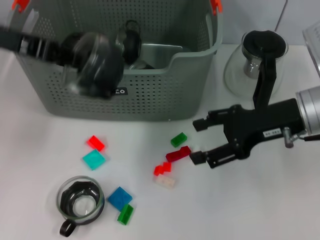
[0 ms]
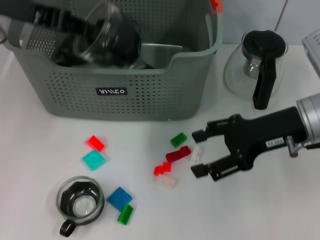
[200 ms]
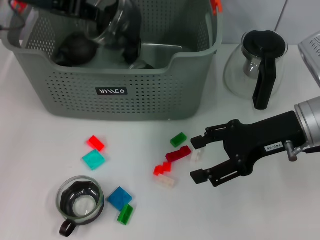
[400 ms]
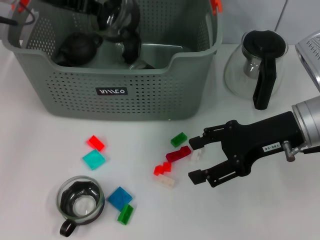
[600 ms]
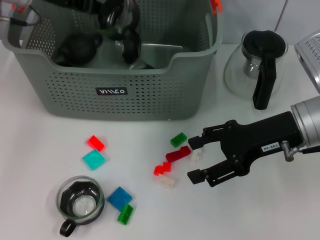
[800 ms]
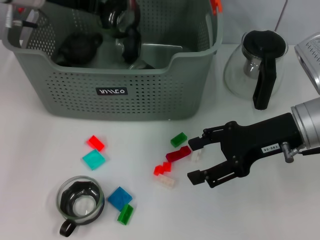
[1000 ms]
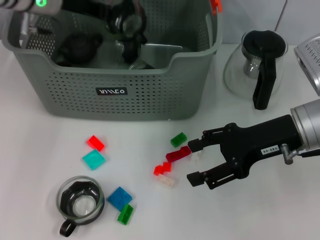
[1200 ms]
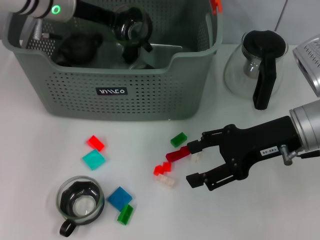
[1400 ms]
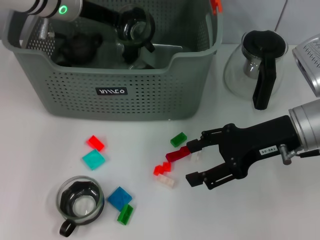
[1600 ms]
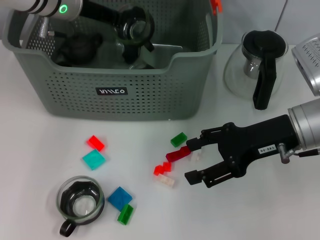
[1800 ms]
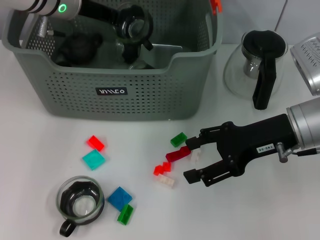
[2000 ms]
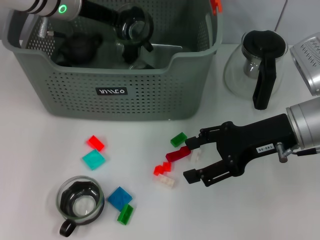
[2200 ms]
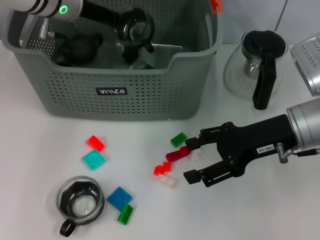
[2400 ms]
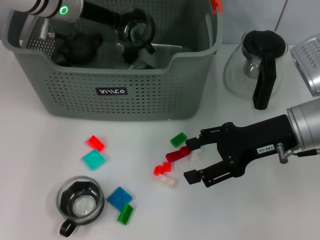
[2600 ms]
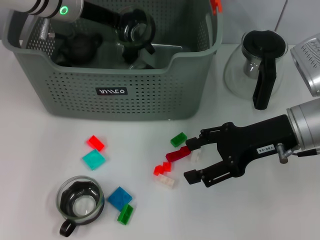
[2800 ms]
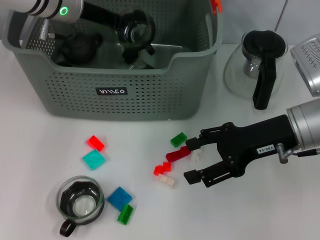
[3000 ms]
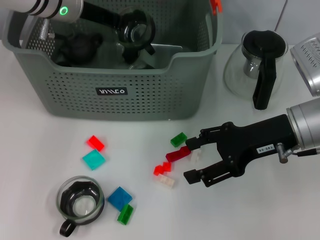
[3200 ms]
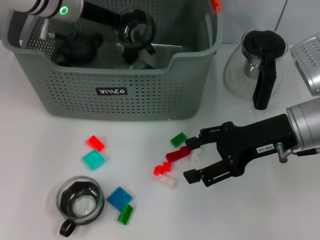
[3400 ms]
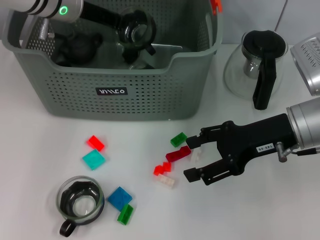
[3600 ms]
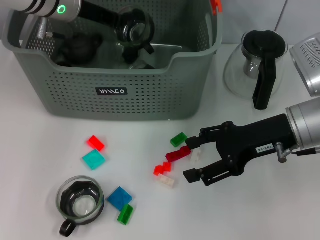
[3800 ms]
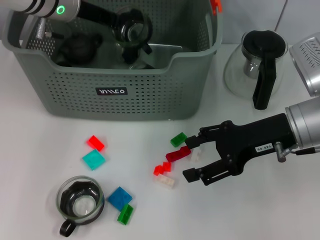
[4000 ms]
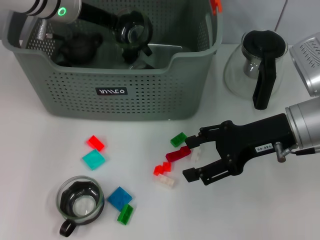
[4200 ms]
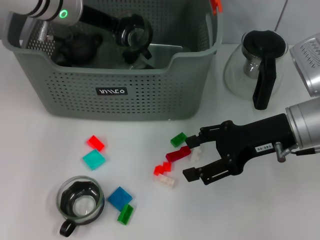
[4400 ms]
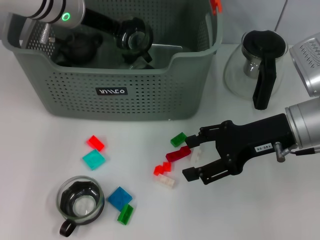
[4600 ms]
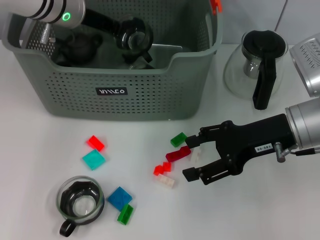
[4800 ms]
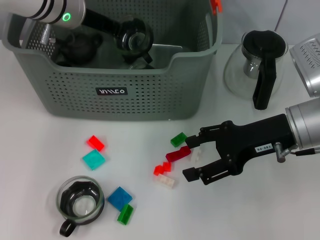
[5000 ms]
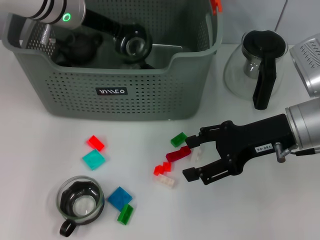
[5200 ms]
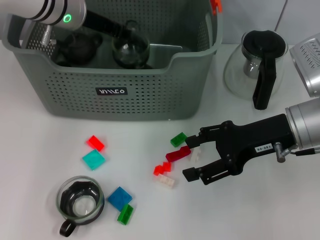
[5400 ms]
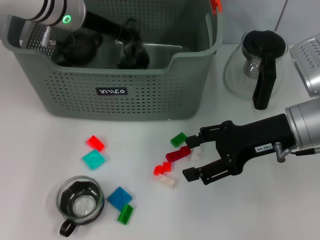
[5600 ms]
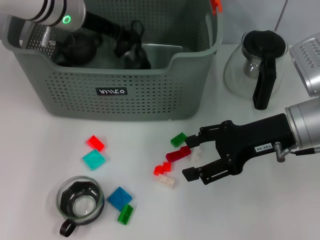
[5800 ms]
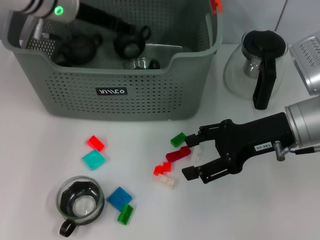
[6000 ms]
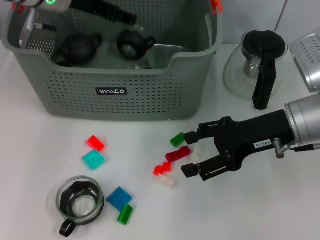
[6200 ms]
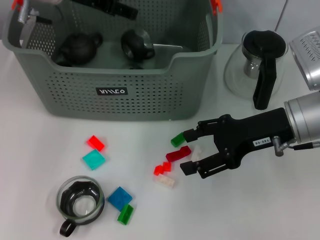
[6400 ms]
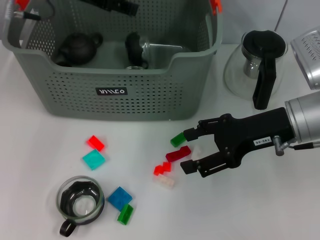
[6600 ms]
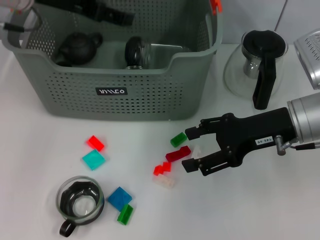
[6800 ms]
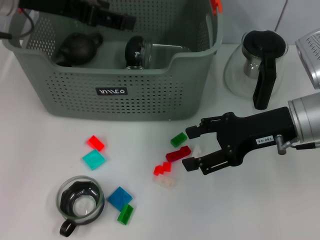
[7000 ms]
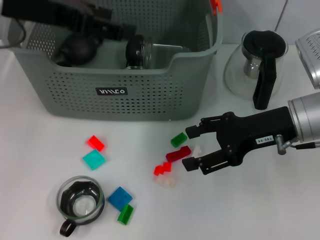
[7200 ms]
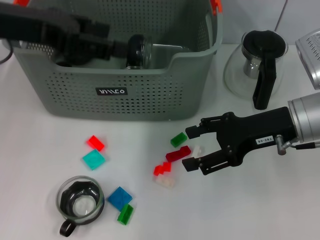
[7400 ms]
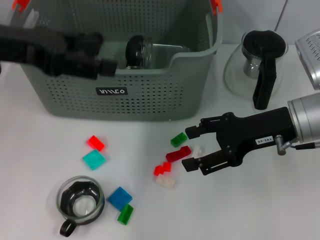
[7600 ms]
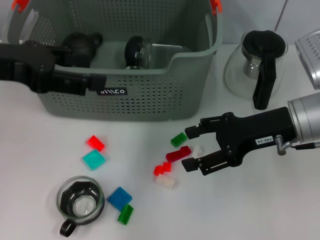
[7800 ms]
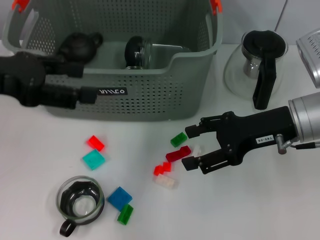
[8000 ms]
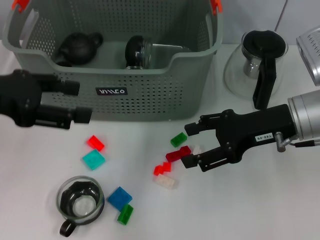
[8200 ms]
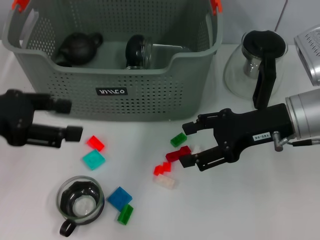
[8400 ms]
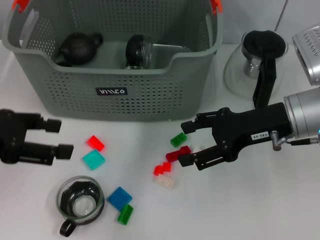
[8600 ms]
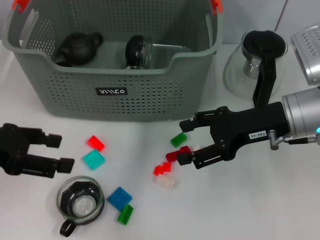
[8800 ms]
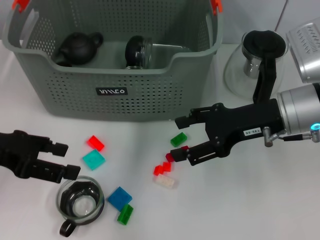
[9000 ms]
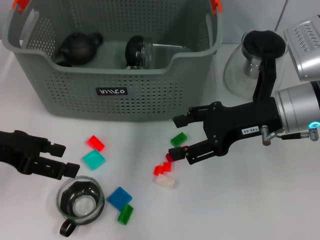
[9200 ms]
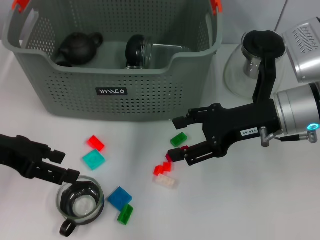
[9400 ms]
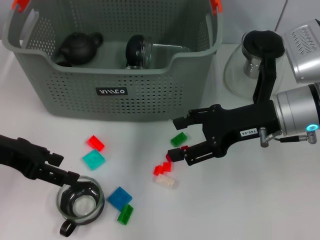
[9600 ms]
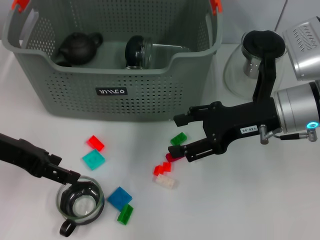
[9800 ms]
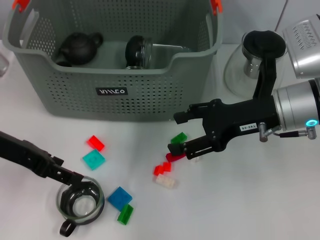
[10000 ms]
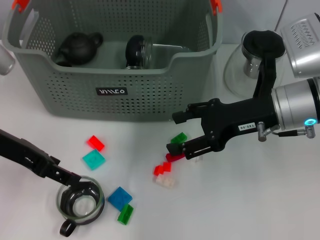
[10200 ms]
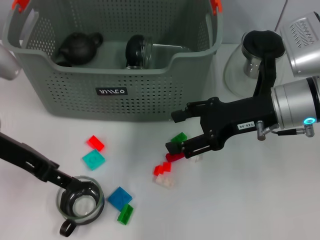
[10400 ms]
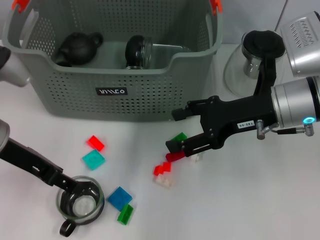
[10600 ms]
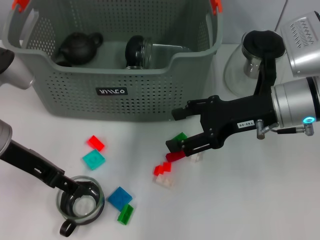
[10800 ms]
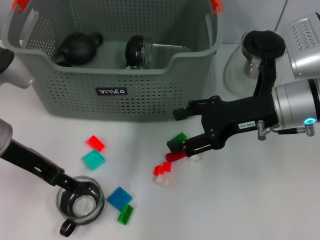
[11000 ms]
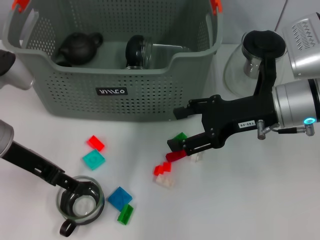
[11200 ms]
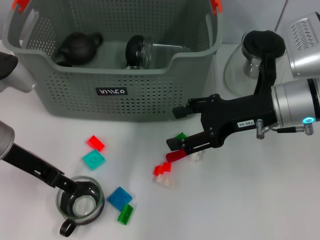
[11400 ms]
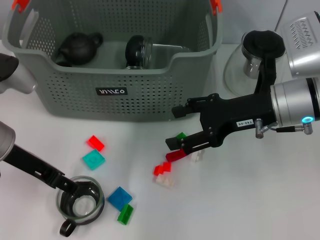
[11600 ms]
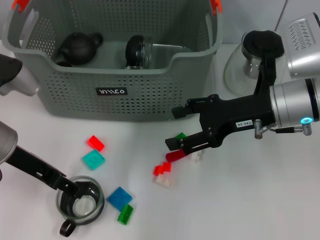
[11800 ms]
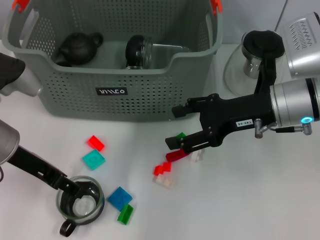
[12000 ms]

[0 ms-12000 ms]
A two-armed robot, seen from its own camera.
Task of the whole recording: pick up the teacup on the table and place it into the storage bin, pick up the block on the table and place it into the storage bin.
Step, 0 ms to 6000 ms: Place the cup in the storage box with left gripper.
0 ms to 1600 ms: The left gripper travels forward, to the right and downward by some 15 cm.
1600 ms to 4400 ms: The two grippers keep their place.
4400 ms to 6000 ms: The left gripper opens up.
6000 ms to 7600 ms: The left gripper shifts about 15 cm backward and to the left.
7600 ms to 9000 ms: The left gripper is displaced downward by roughly 10 cm.
9000 ms to 10400 ms: The left gripper shifts by roughly 5 cm.
10400 ms to 12000 ms: There are only small adjustments of the grippers.

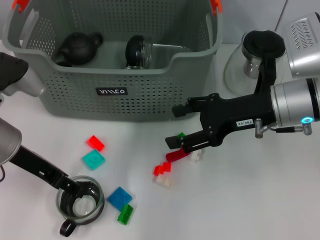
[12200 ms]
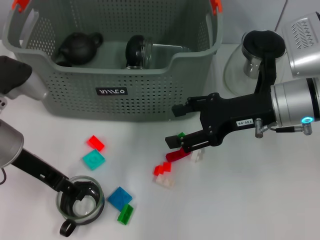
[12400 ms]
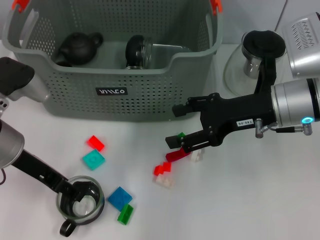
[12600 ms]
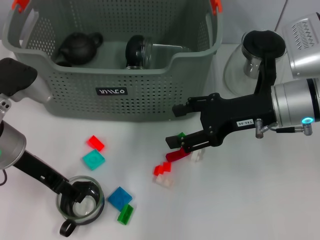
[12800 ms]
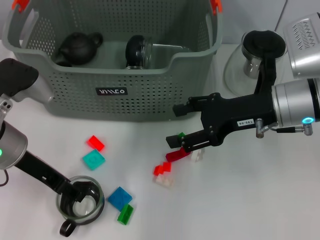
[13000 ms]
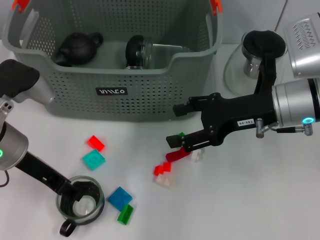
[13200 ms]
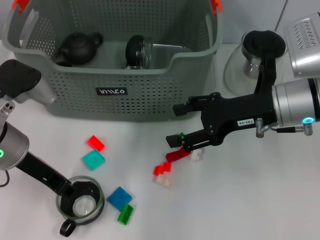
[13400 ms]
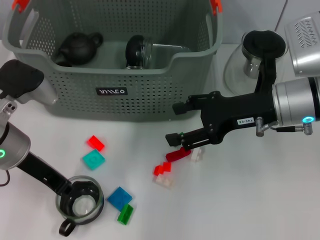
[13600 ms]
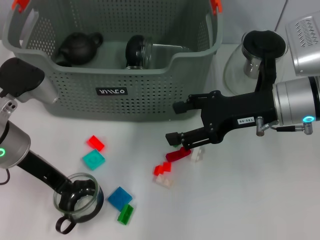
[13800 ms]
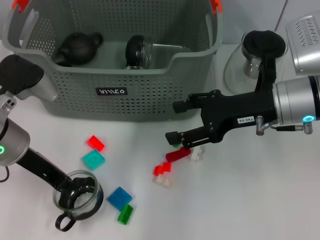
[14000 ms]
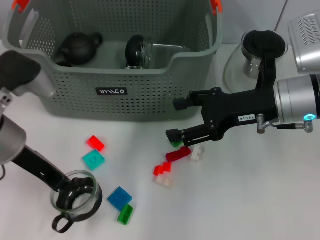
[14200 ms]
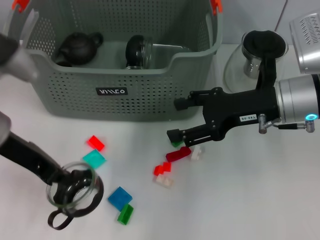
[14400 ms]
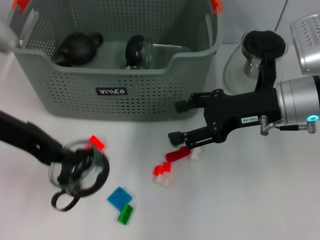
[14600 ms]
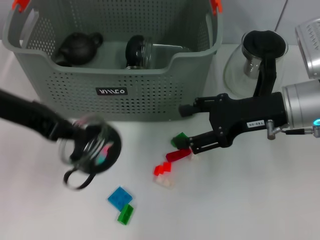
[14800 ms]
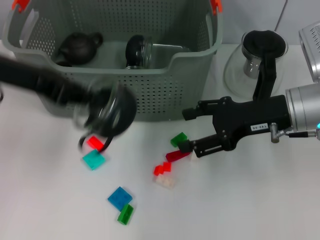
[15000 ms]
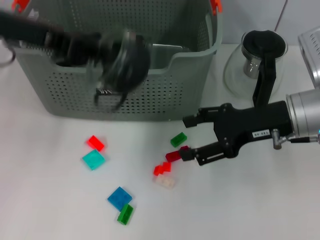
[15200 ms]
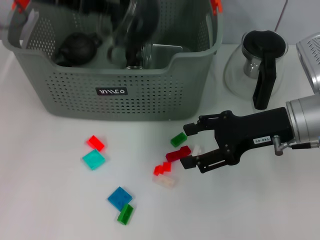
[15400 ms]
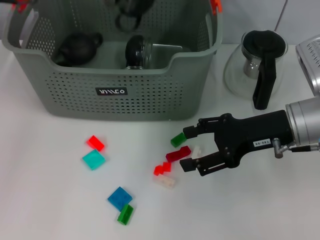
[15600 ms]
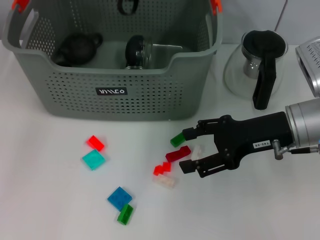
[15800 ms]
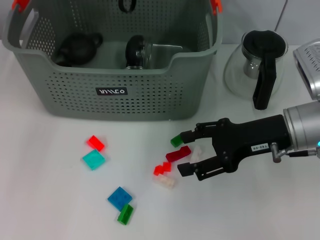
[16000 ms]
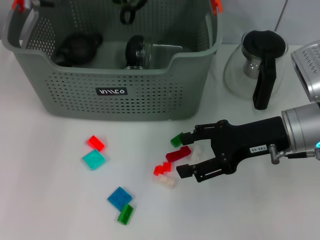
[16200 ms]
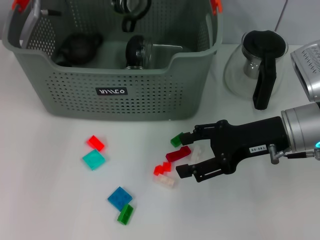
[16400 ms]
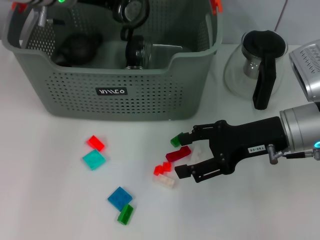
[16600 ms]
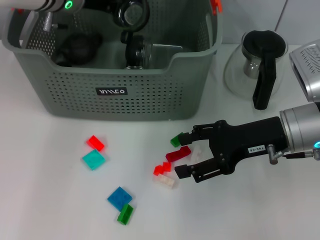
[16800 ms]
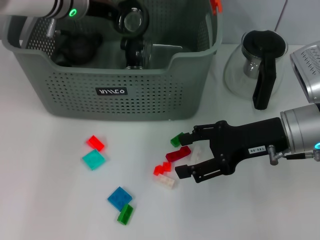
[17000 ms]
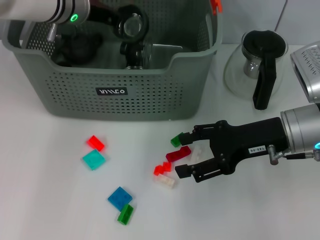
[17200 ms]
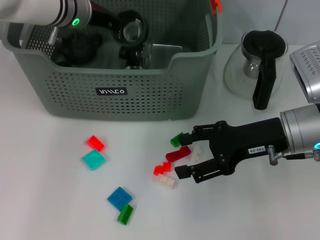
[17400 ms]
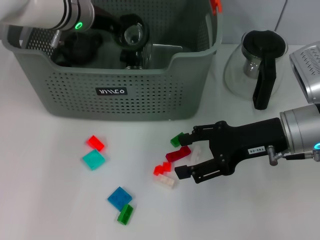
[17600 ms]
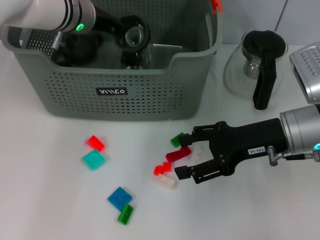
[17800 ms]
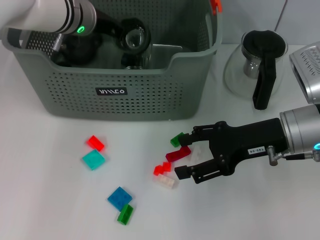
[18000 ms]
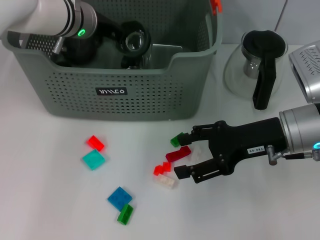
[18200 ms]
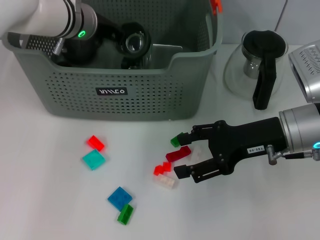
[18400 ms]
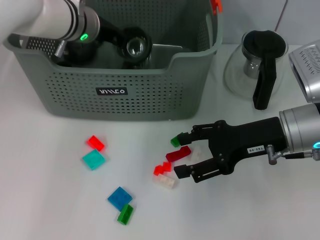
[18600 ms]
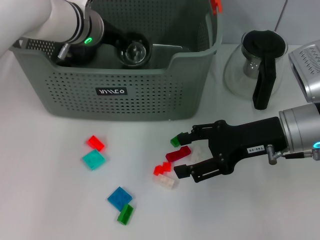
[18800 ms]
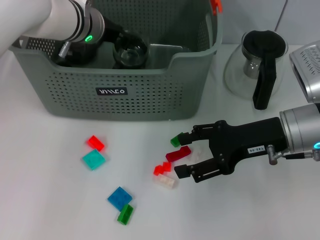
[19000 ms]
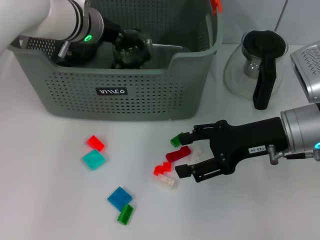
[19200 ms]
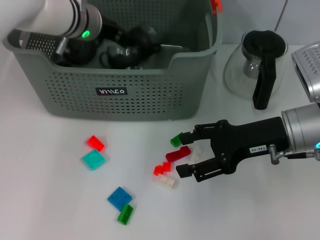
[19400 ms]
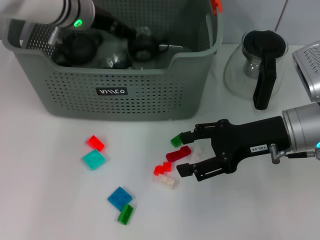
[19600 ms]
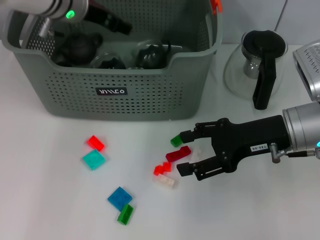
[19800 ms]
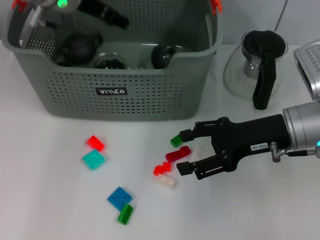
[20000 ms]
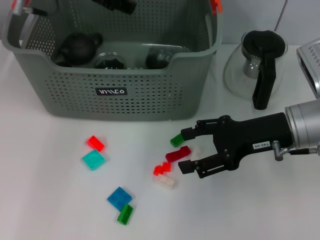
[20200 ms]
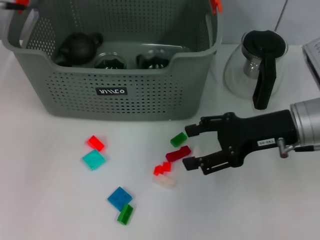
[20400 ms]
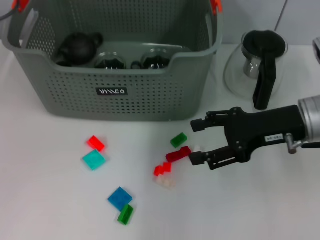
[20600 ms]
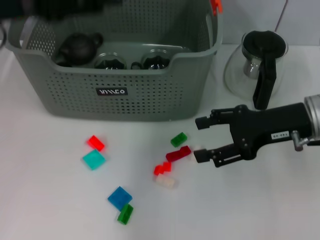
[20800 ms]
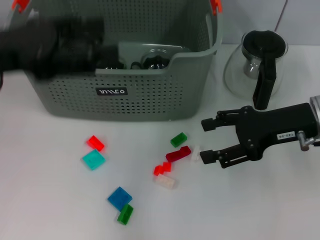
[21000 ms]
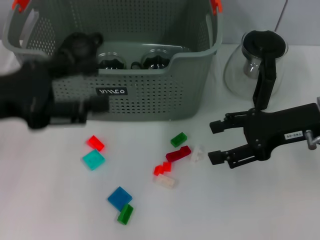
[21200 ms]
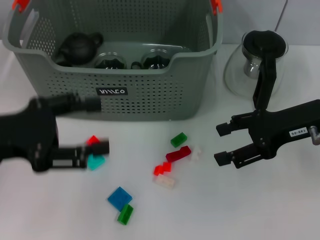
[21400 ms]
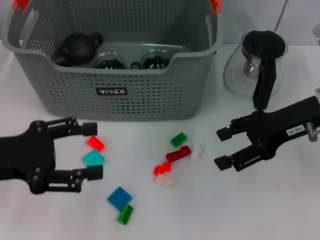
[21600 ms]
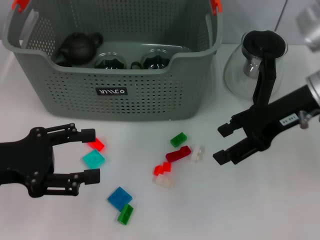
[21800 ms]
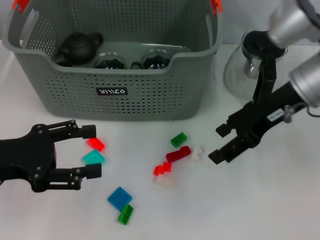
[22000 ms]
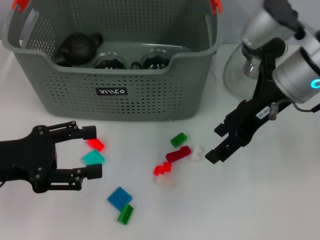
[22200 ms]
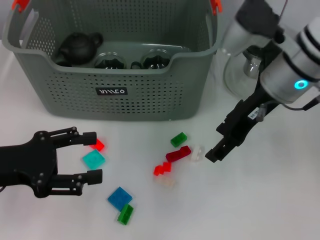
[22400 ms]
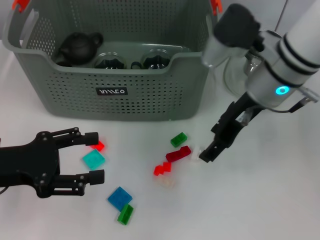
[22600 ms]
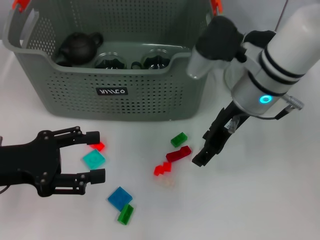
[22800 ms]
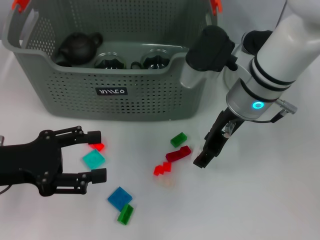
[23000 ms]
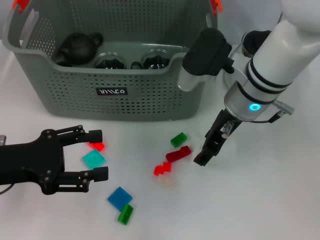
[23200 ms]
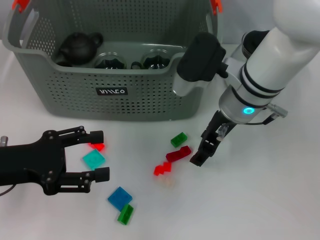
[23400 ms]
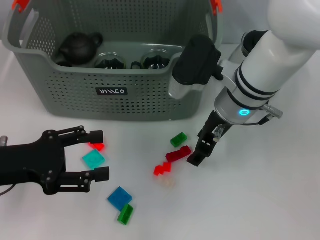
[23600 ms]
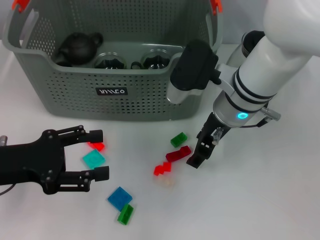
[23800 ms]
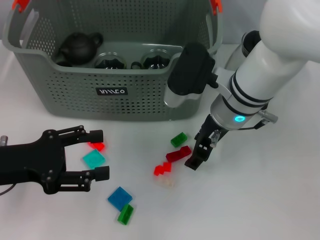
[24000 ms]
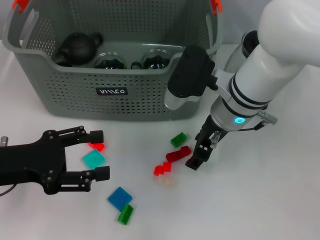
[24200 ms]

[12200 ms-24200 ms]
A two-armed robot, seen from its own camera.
Task of the whole recording: pick up the teacup on the table and place it into the storage bin, pick up the block on the table and place it into the storage bin.
Step, 13800 ms to 19600 ms: Place the cup in the storage box with left gripper.
12200 ms to 13800 ms: The left gripper closes up.
13800 ms to 15200 ms: The left gripper heads upward, covering some 15 cm.
15200 ms to 16600 ms: The left gripper travels forward, downward and to the right by roughly 15 cm.
16600 ms to 18200 ms: There are only small adjustments of the grippers.
18200 ms to 19800 ms: The left gripper opens.
19800 ms to 21200 ms: The left gripper is displaced backward and to the left by roughly 25 cm.
21200 ms to 22600 ms: The right gripper heads to the left, covering some 10 cm; the left gripper shifts some 10 cm downward.
22600 ms to 24200 ms: The right gripper heads downward, covering approximately 5 cm.
